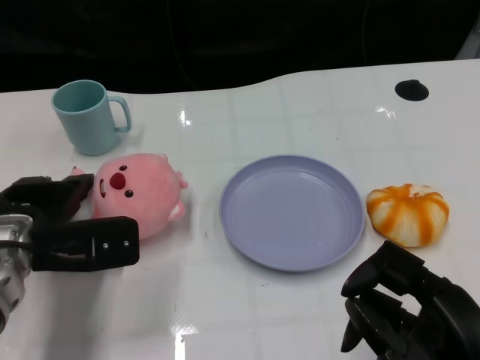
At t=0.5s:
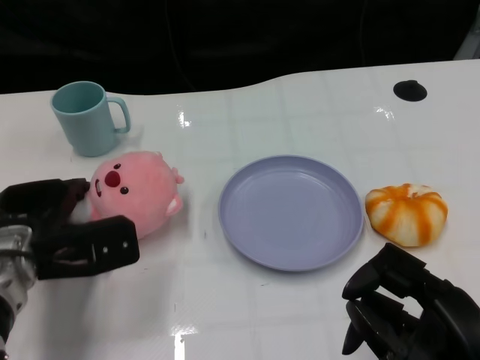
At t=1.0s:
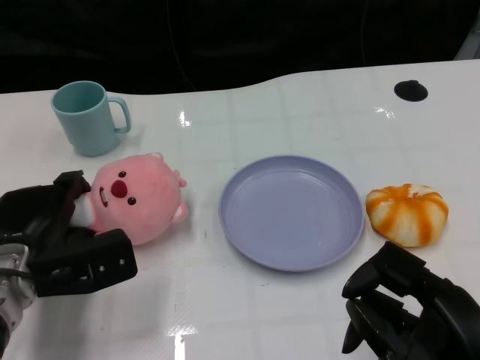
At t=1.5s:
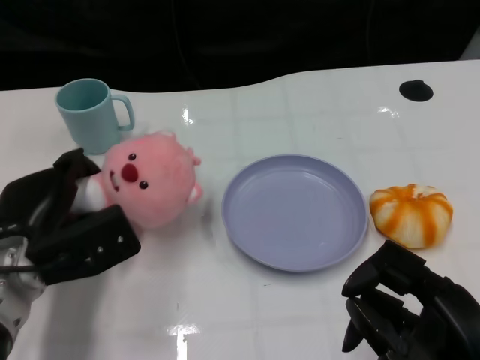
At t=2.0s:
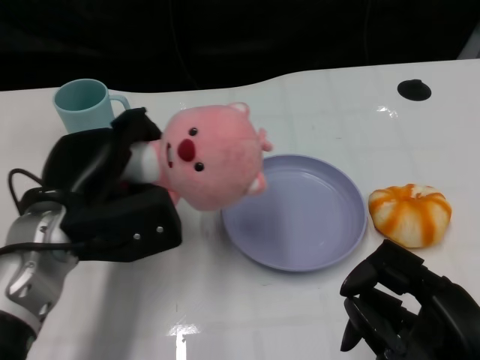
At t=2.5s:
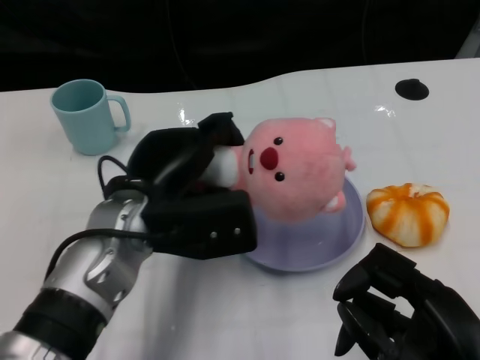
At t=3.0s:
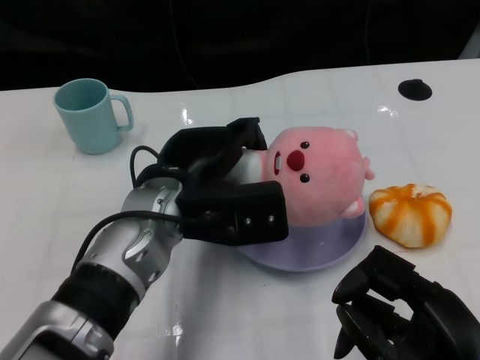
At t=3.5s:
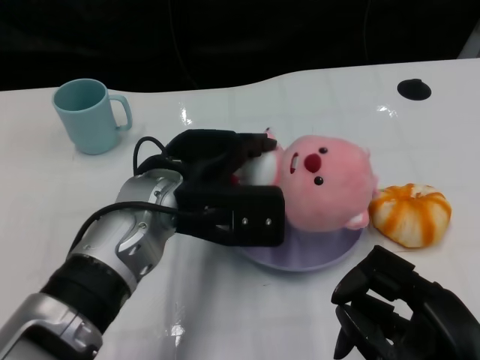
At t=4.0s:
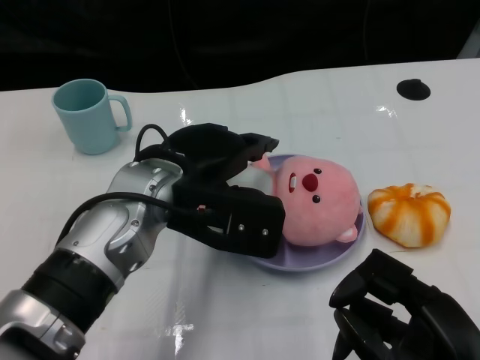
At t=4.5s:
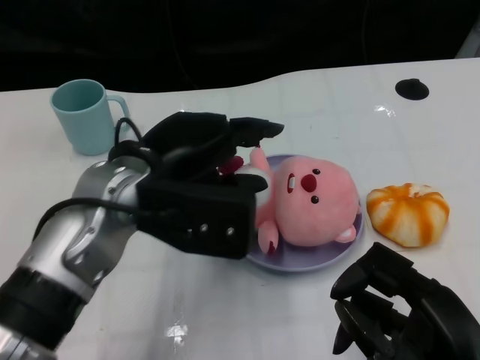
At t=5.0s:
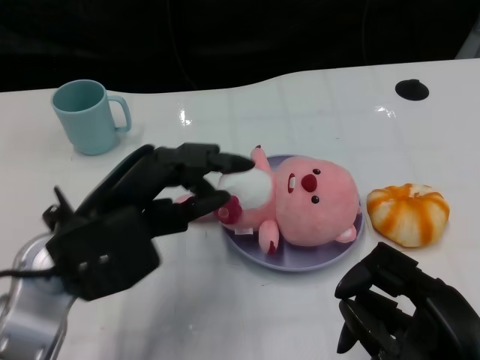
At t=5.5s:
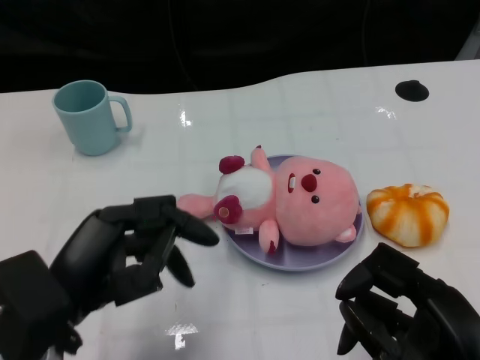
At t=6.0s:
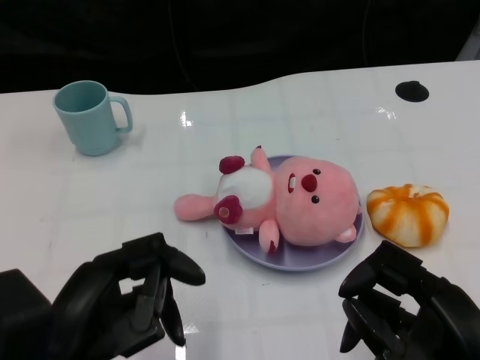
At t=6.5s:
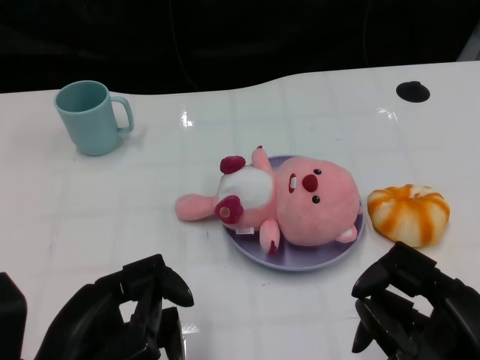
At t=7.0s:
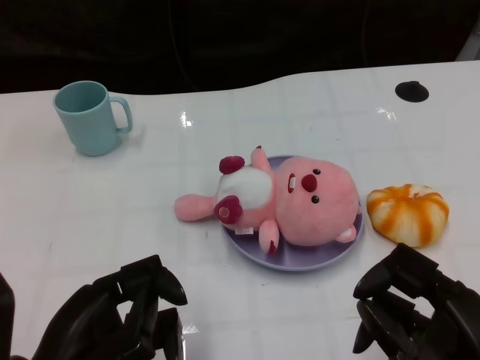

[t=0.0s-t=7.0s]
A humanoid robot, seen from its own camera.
Task of the whole recording: Pick up the doll on one side of the plate and place it into the plate.
Step, t=2.0s to t=3.5s: Place the pink doll into the plate with the left gripper.
t=0.0s to t=2.0s: The left hand ends up approximately 5 cm from where it was.
t=2.0s to t=3.5s: The left hand travels to the right by some 10 cm.
t=3.5s to t=5.0s: The left hand goes some 10 cm to the left and backward.
t=5.0s to t=7.0s: The left hand is displaced backward by approximately 10 cm.

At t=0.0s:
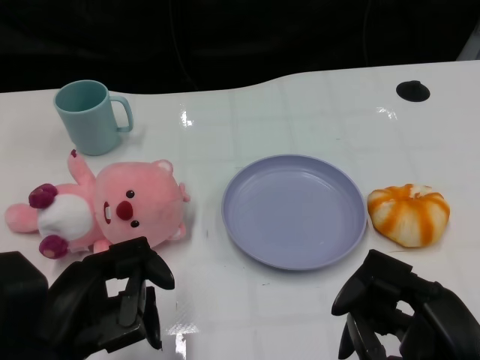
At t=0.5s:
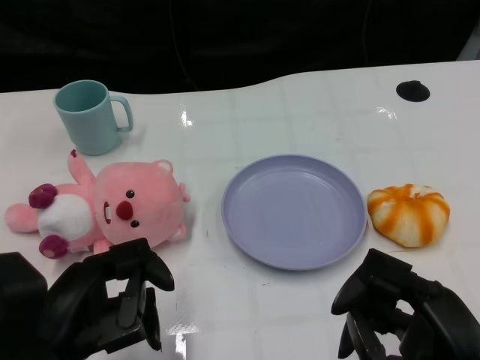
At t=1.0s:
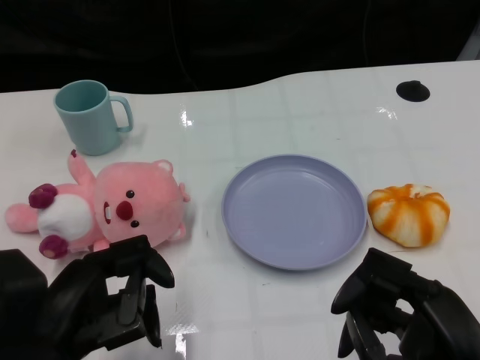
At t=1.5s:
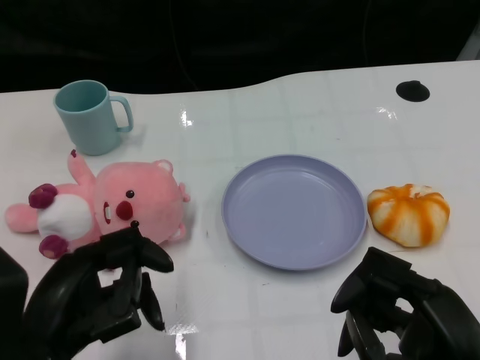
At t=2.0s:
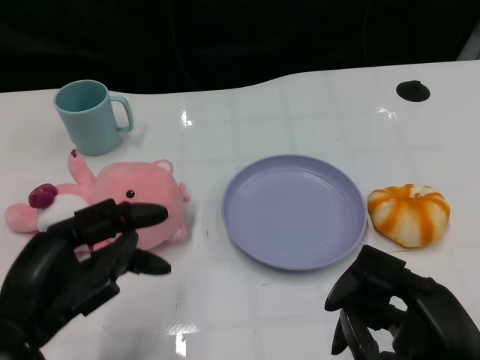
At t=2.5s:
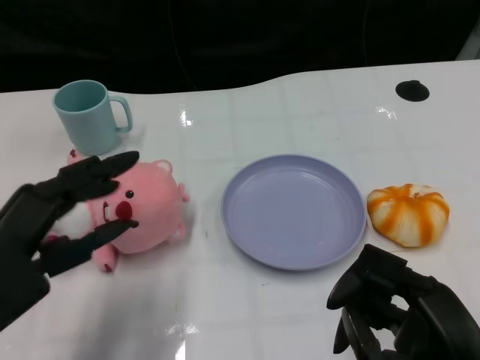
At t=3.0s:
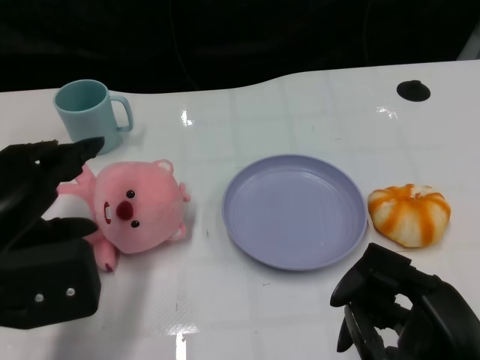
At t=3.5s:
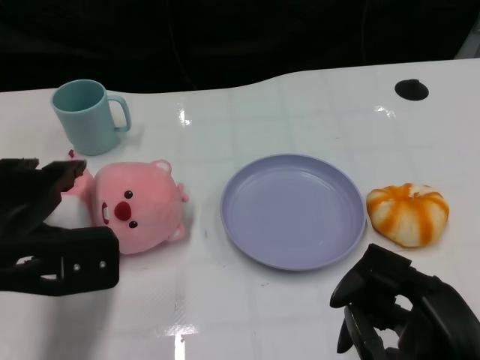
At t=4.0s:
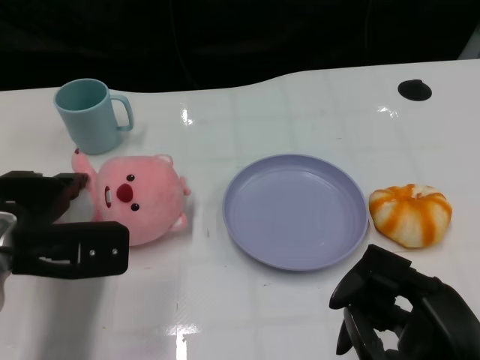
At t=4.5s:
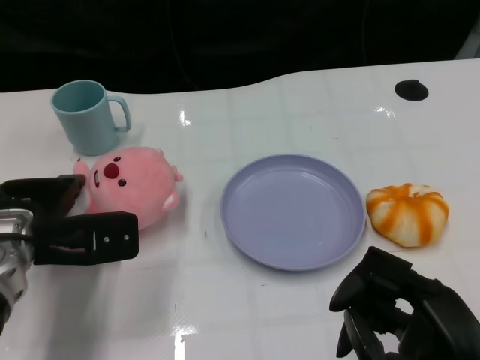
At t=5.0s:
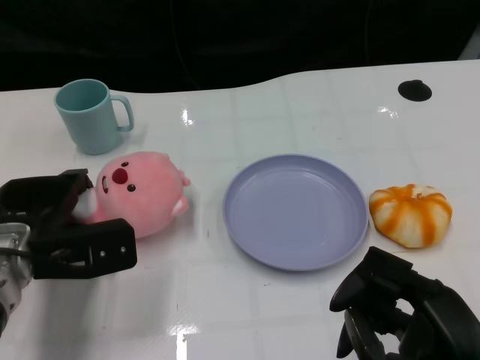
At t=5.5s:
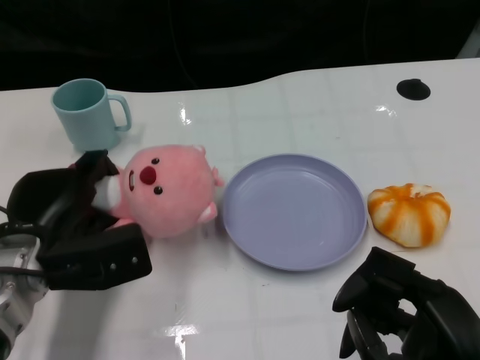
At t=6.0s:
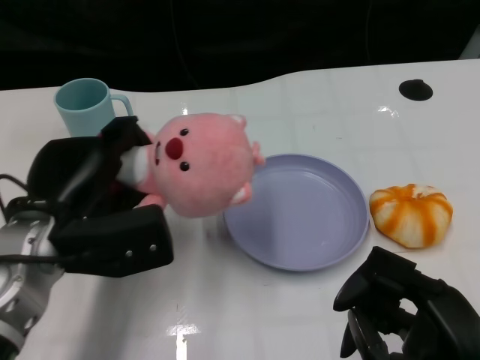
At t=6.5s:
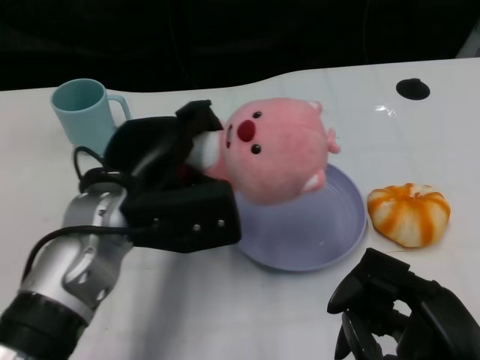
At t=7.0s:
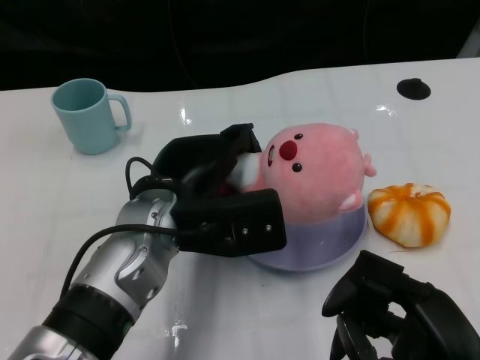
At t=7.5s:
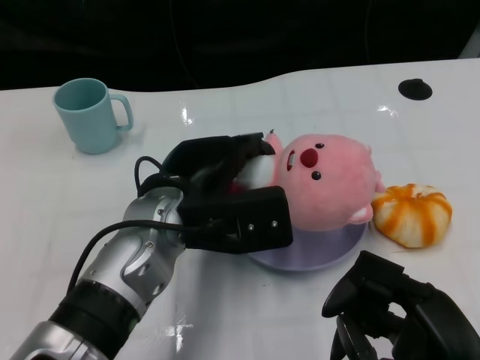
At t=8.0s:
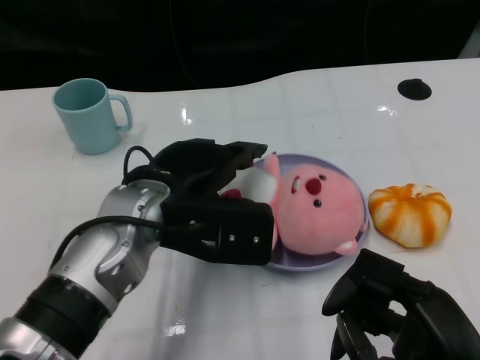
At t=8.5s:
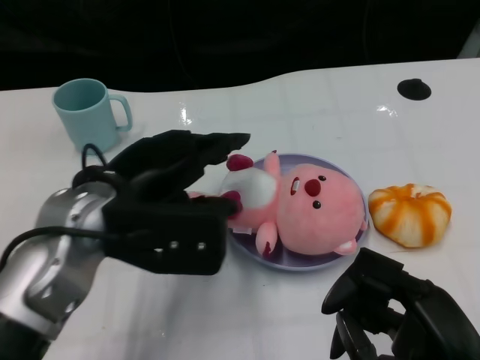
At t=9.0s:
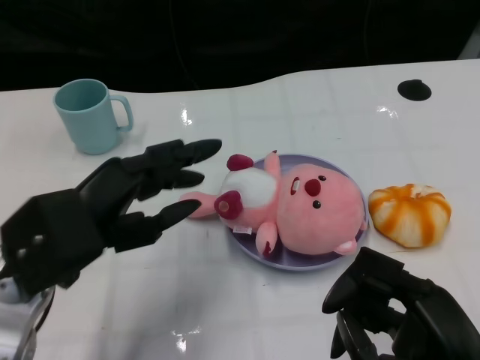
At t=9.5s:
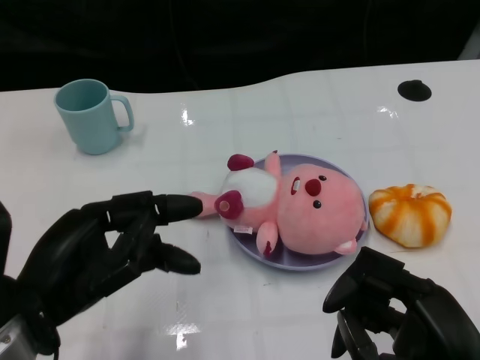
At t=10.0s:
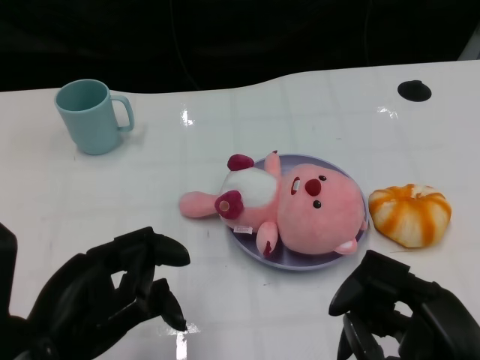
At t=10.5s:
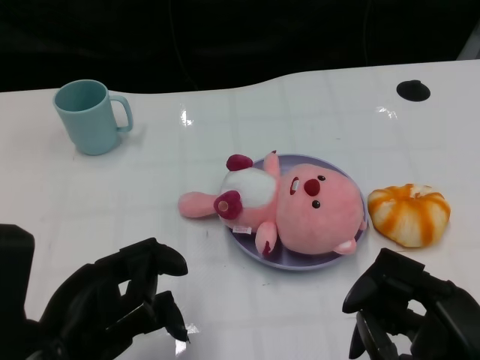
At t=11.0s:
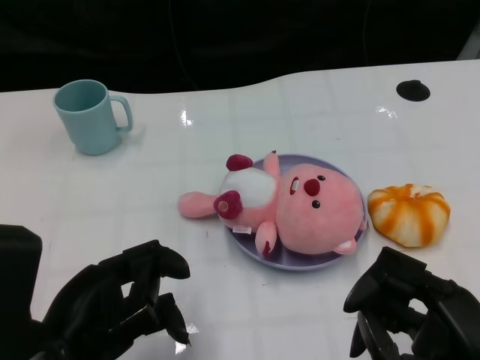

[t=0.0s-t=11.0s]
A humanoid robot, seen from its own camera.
Task of the whole recording: Pick up the doll on one side of the plate and place it into the plate.
Step, t=1.5s to t=5.0s: Grasp the pink doll with the left gripper.
Step, t=5.5s to t=8.0s: Place the pink doll into the plate with the left gripper.
t=2.0s to t=3.5s: The left hand travels forward by approximately 10 cm.
t=3.5s to t=5.5s: The left hand travels downward by approximately 5 cm.
t=5.5s to t=7.5s: The left hand is displaced to the right and upward by approximately 15 cm.
t=7.5s to t=9.0s: The left hand shifts about 15 cm to the left and backward.
t=9.0s to t=11.0s: The left hand is displaced backward by roughly 5 cm.

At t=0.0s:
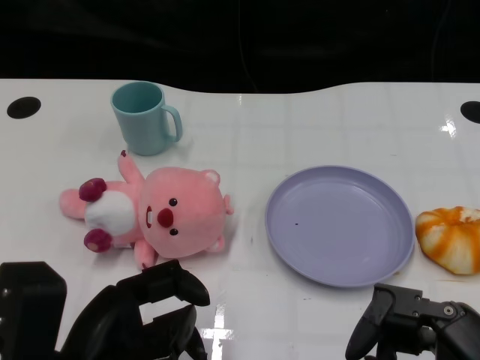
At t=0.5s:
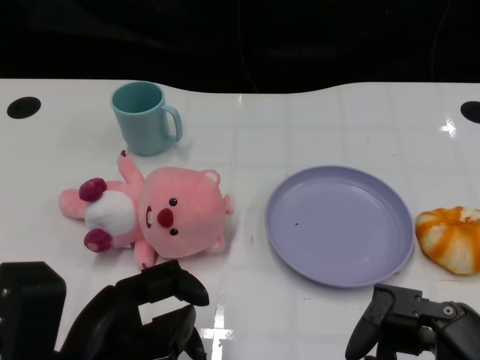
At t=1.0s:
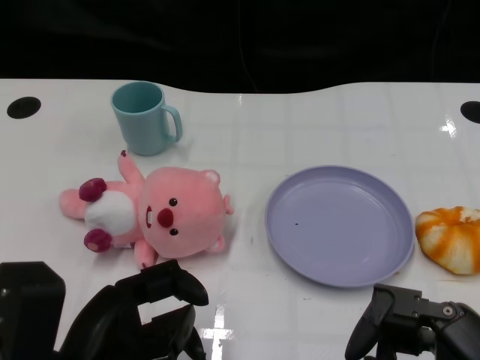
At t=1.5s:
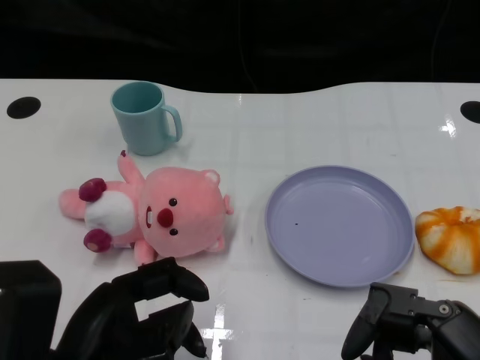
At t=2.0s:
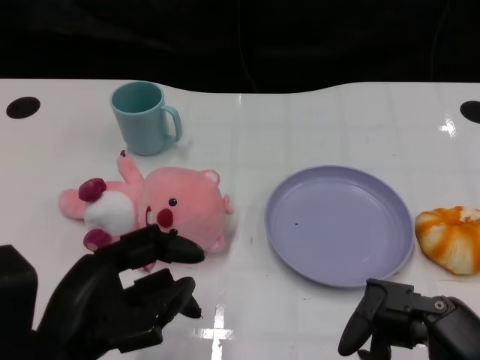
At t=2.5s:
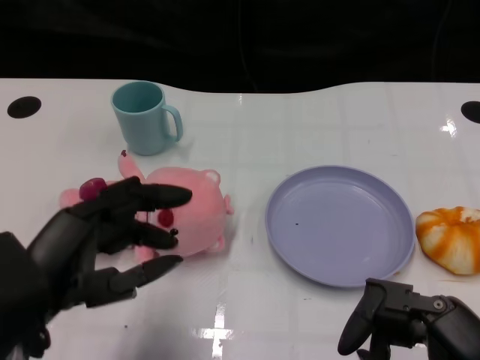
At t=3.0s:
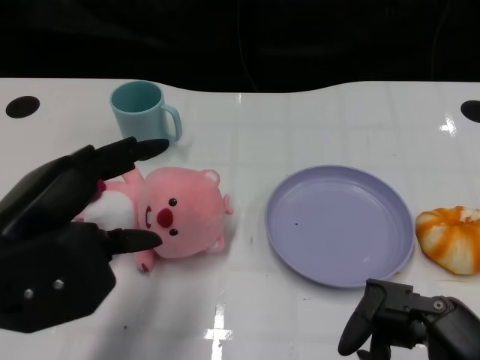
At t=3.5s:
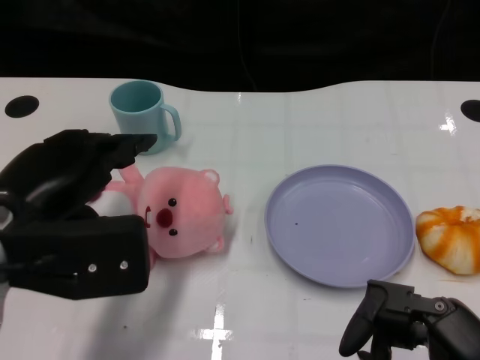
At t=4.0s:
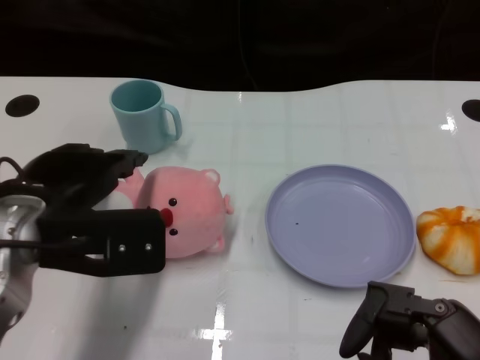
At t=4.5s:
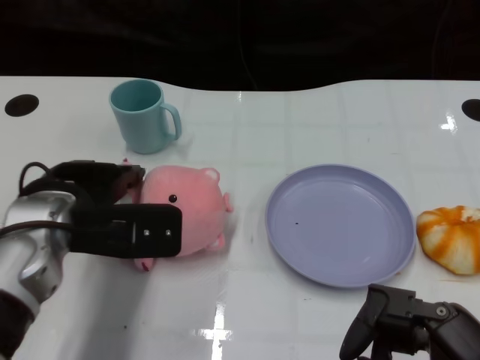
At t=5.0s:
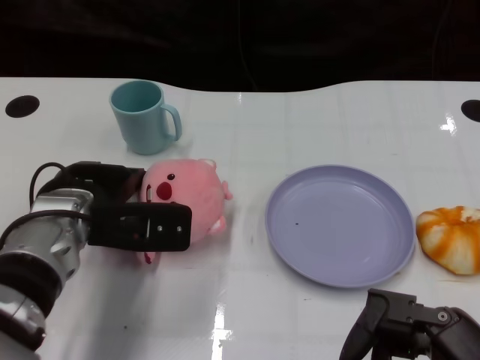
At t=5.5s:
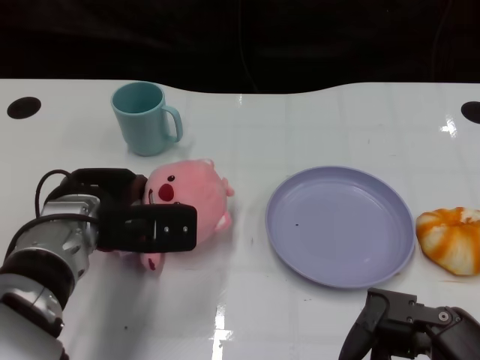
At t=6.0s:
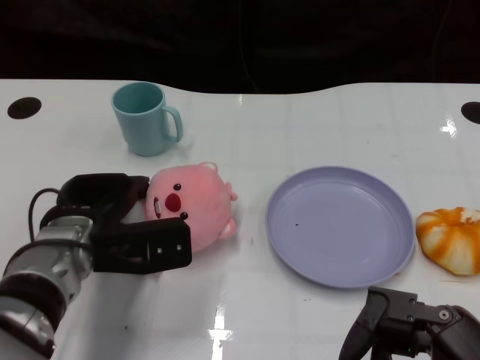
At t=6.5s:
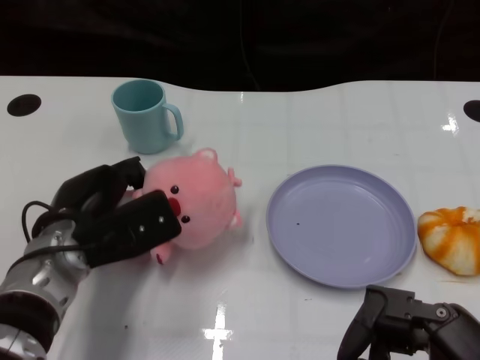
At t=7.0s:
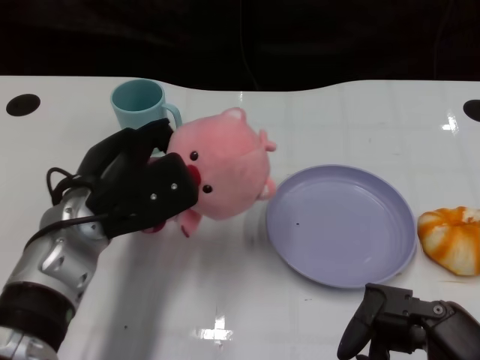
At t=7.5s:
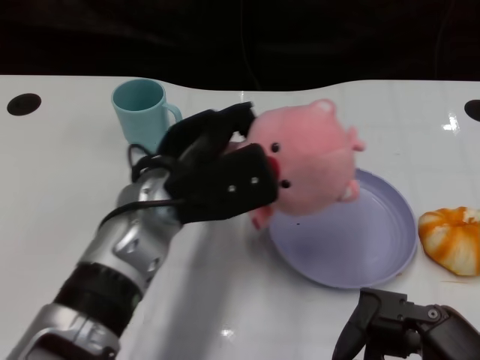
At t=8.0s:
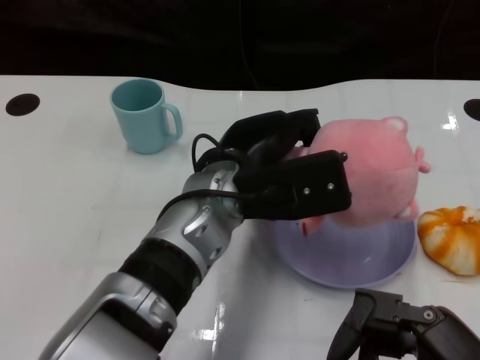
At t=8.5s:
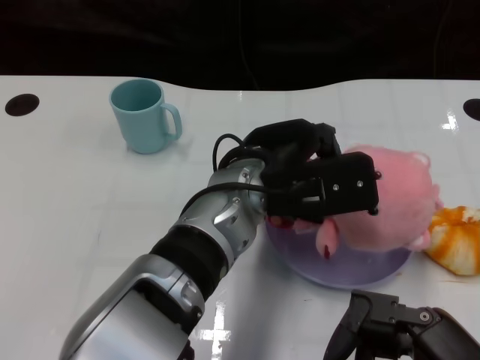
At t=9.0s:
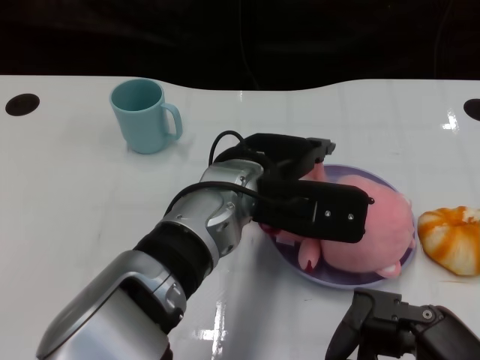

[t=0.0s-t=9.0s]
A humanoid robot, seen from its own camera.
Task of the whole recording: Pick up the doll on one side of the plate and place it into the plate.
Step, t=1.5s to t=6.5s: Grasp the pink doll with the left gripper.
t=2.0s to t=4.5s: The left hand travels forward by about 15 cm.
t=7.0s to t=9.0s: The left hand moves to the right, some 15 cm.
